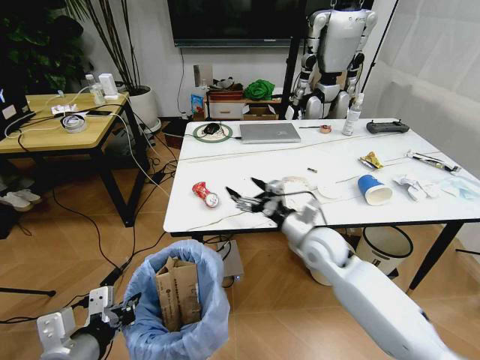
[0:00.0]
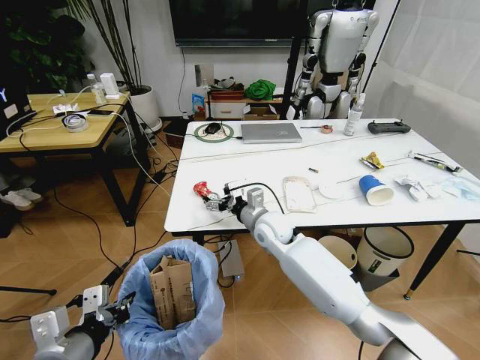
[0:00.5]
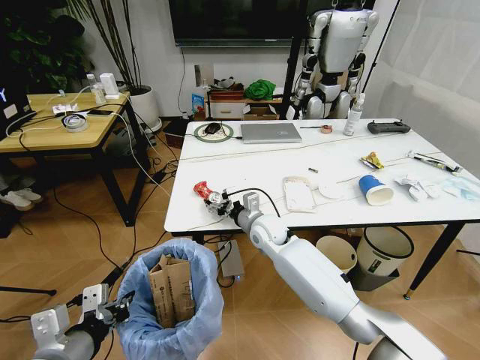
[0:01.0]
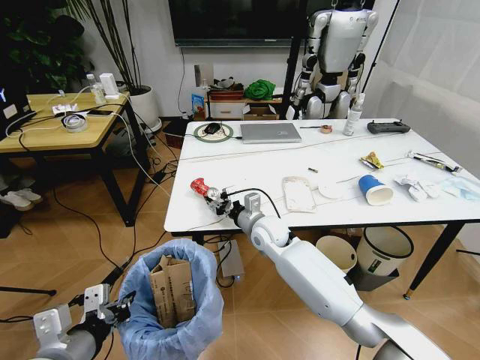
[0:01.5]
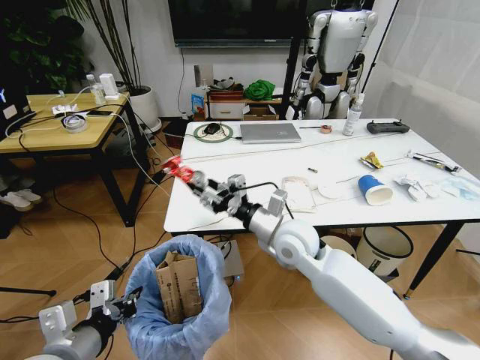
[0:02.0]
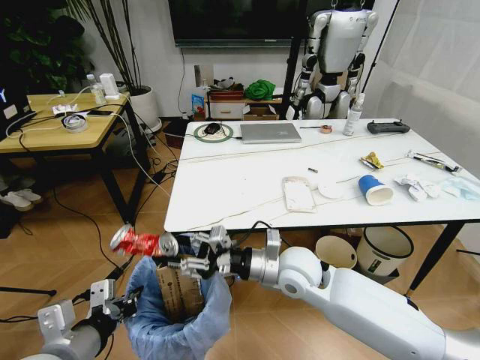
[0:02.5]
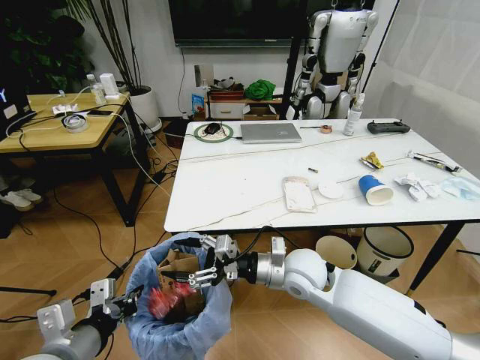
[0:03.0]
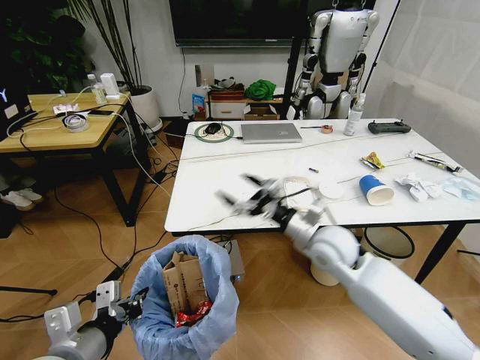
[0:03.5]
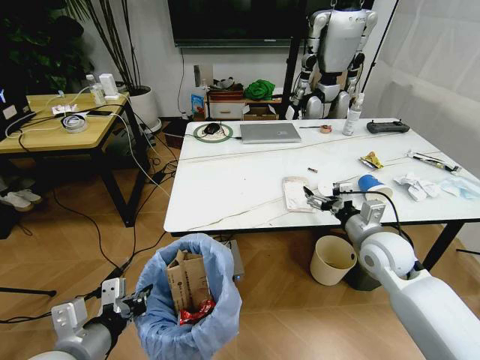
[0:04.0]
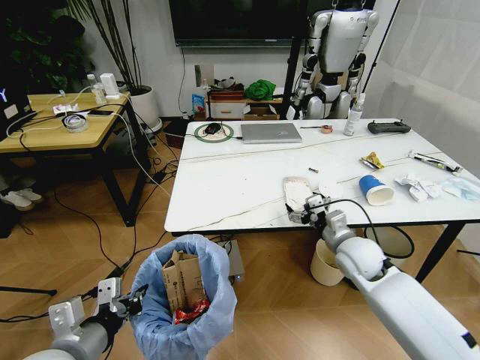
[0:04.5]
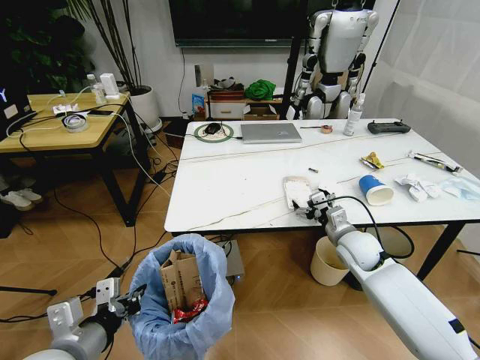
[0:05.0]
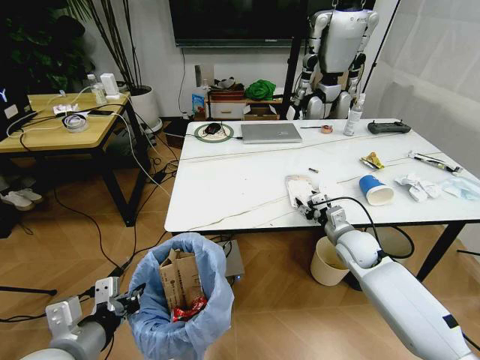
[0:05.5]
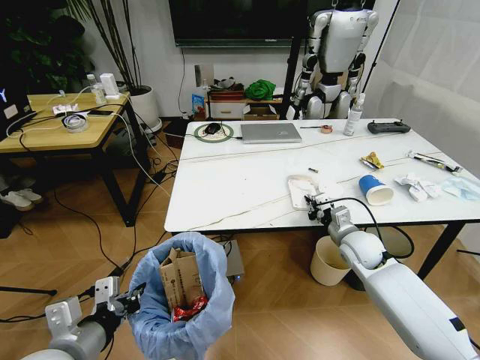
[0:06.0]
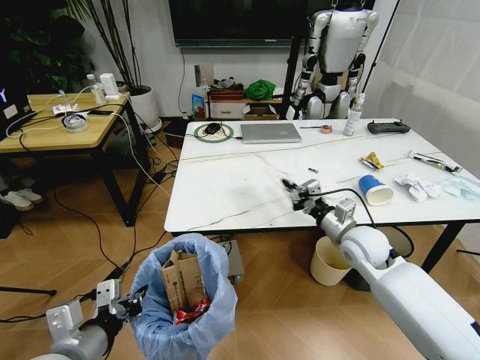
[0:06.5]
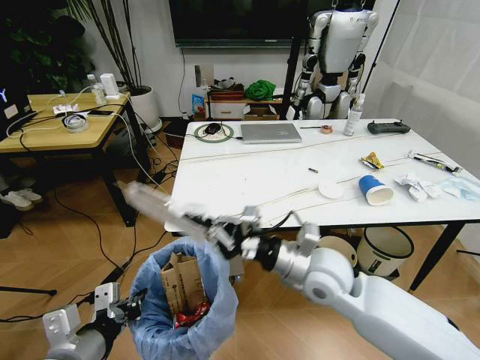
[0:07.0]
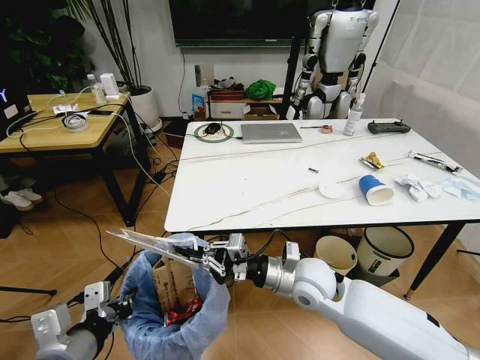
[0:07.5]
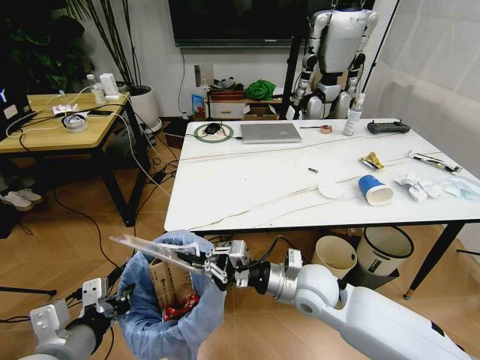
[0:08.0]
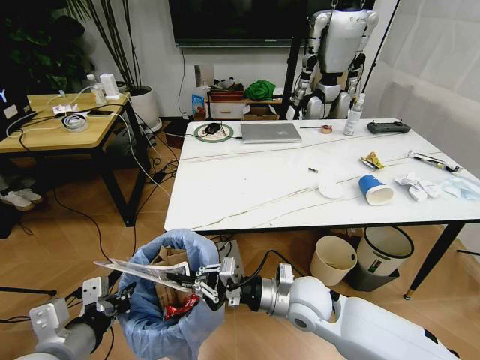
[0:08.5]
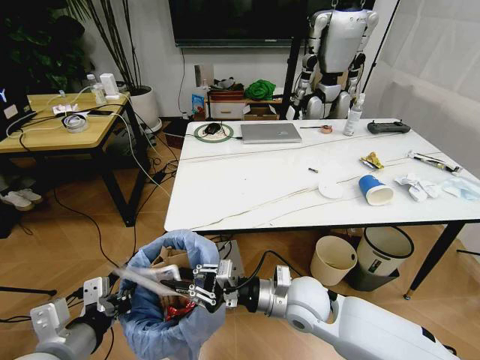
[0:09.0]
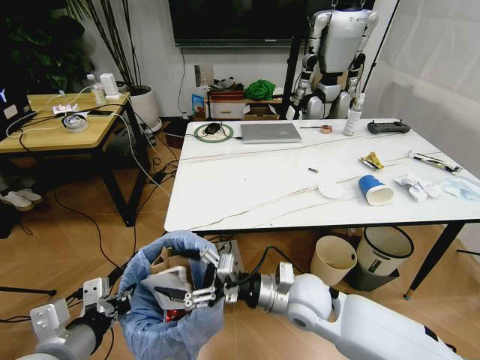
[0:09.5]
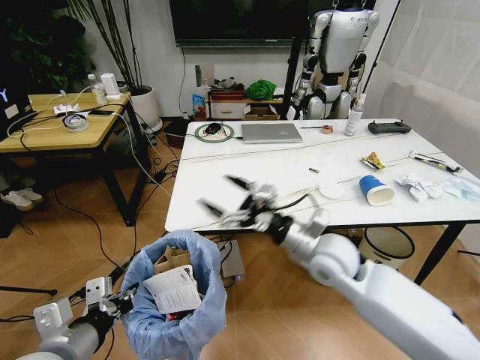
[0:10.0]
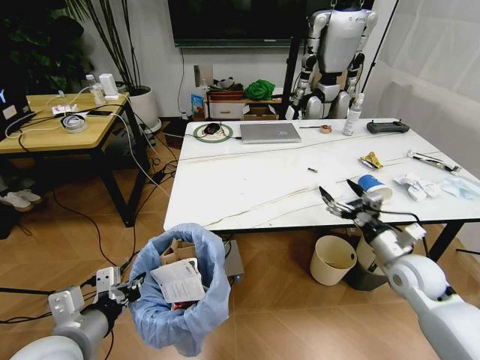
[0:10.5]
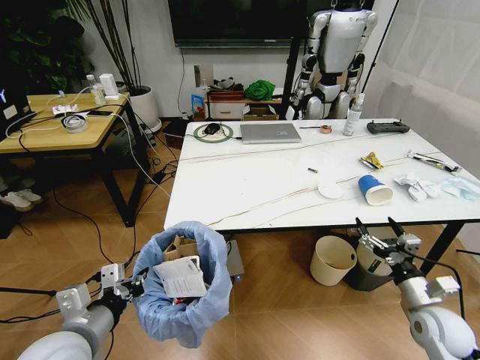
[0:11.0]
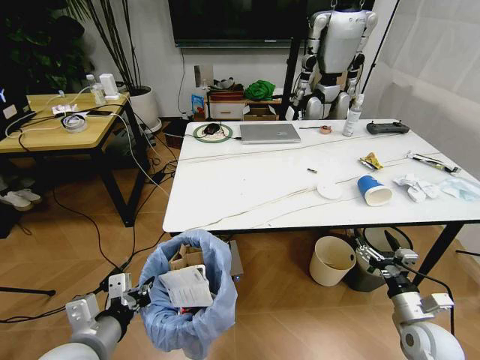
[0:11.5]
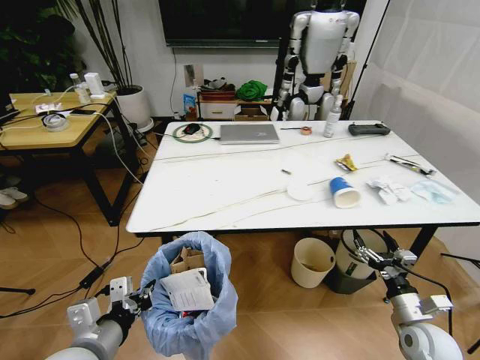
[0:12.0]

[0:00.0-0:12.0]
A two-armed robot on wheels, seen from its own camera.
Task of the whole recording: Pick up the trash bin and place the trash from the table into it.
0:00.0 to 0:02.0: The right gripper moves to the left, about 5 cm, and closes up.
0:02.0 to 0:04.0: The right gripper shifts some 20 cm to the right, and opens.
0:04.0 to 0:06.0: The right gripper travels downward and forward by roughly 10 cm, and closes.
0:06.0 to 0:08.0: The right gripper is displaced to the left and backward by roughly 20 cm.
0:08.0 to 0:10.0: The right gripper goes roughly 5 cm upward, and opens its fingers.
0:10.0 to 0:12.0: The left gripper changes place by roughly 5 cm. The right gripper shifts about 30 cm to the right, downward and backward.

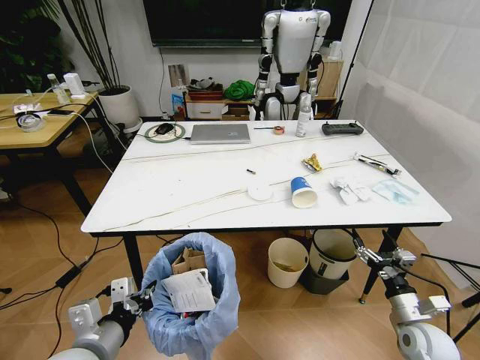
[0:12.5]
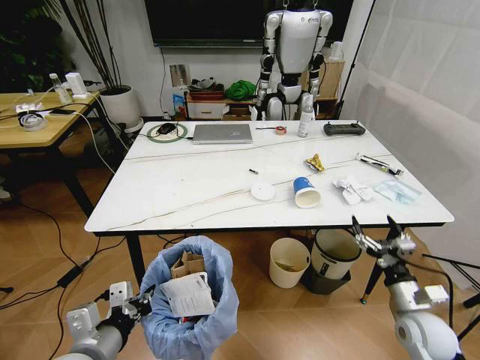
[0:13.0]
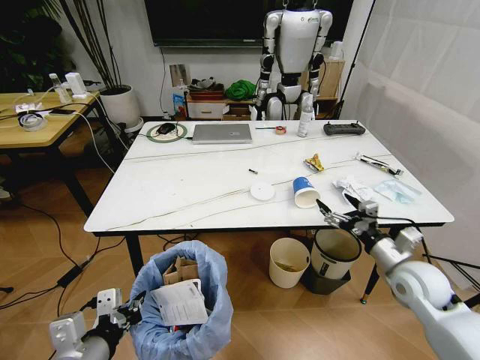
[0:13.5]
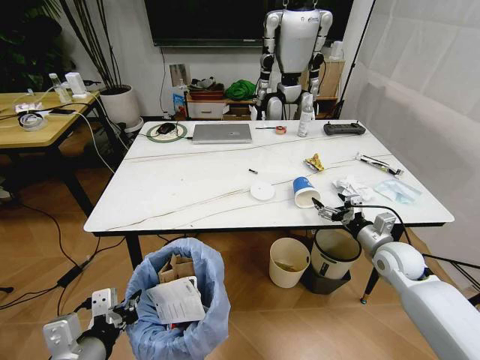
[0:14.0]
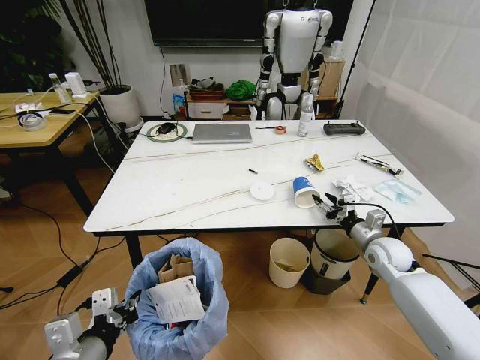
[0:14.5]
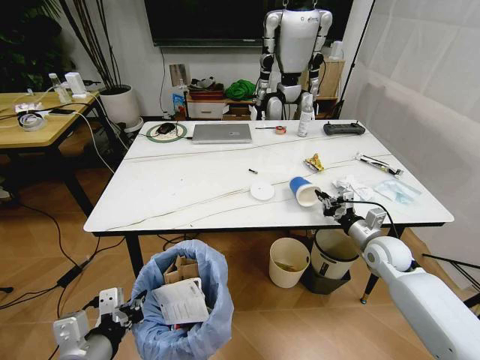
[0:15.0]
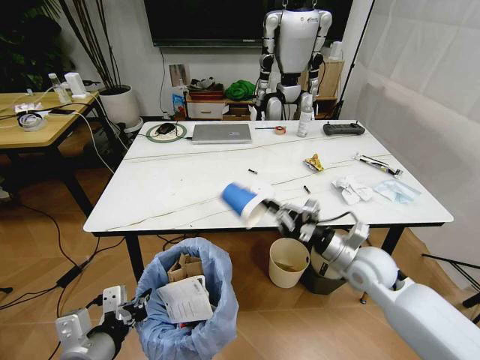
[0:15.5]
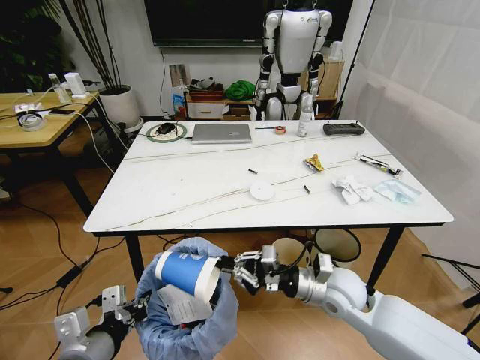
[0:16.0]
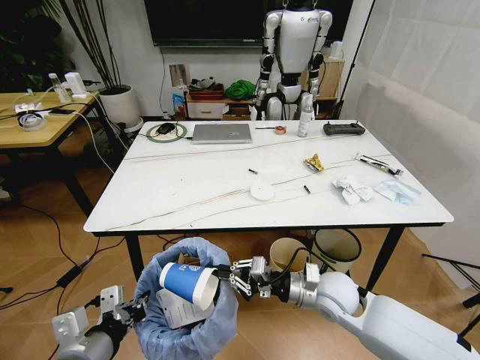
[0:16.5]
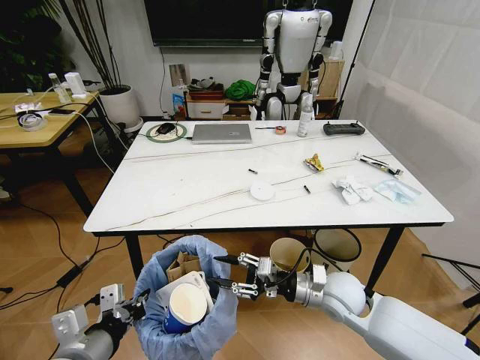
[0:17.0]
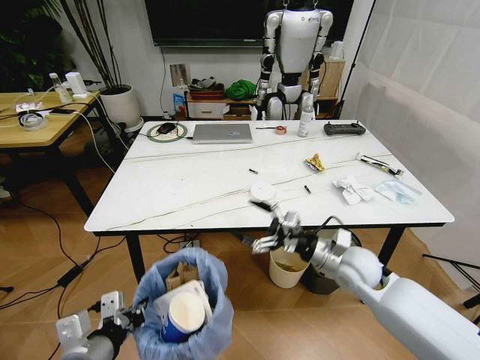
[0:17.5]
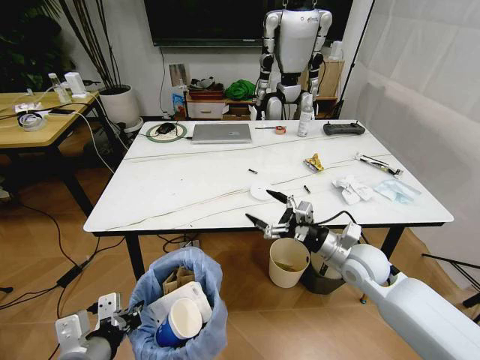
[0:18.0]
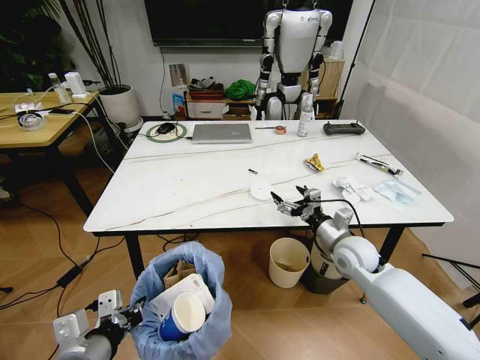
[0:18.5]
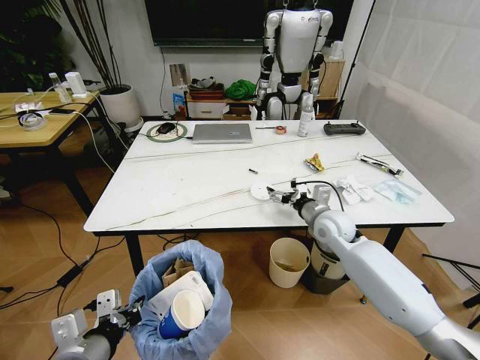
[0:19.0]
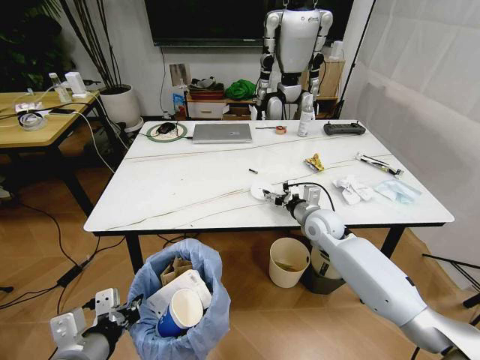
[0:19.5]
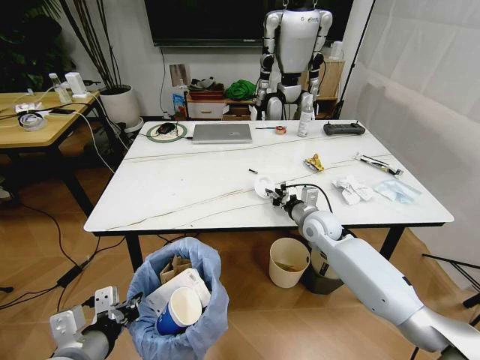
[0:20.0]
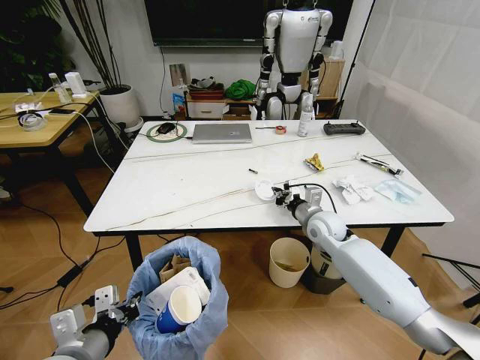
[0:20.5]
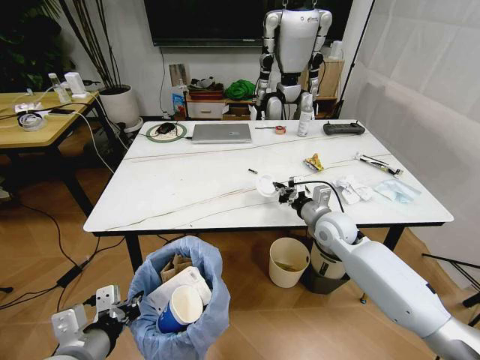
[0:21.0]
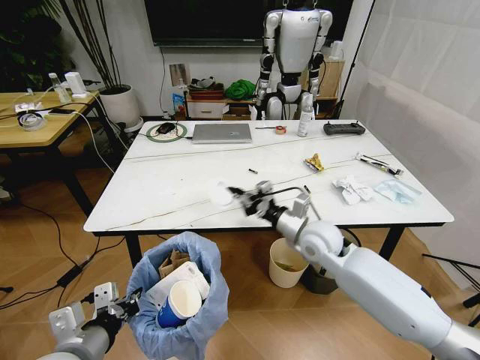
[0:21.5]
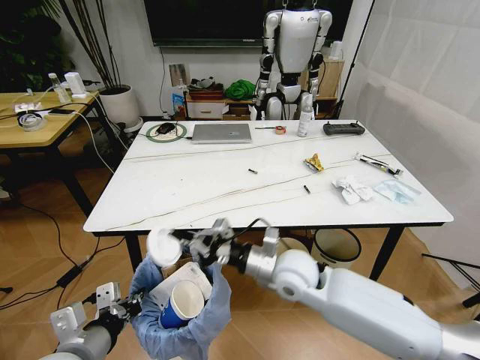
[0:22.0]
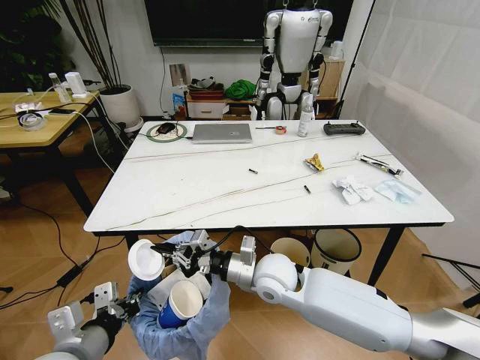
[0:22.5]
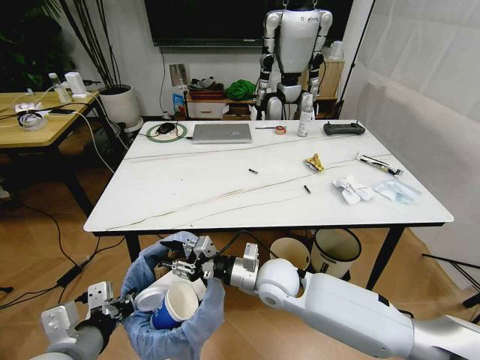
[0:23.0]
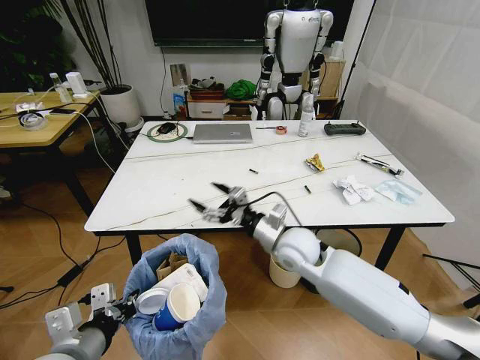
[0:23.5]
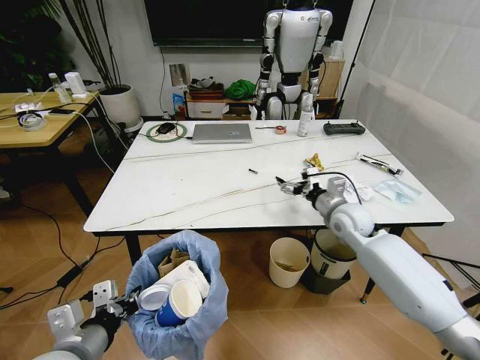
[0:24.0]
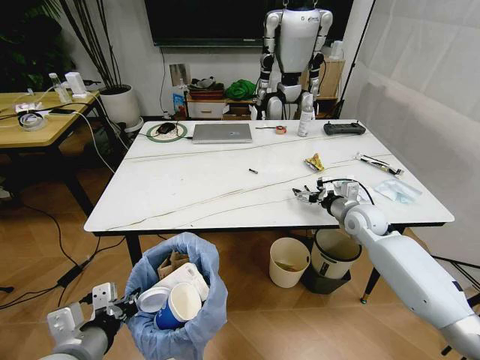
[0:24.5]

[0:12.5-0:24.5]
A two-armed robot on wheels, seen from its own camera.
Task of the whole recording: Pick up the trash bin and place the trash from the table into it.
0:12.5 to 0:14.5: The right gripper goes some 20 cm forward, and closes.
0:14.5 to 0:16.5: The right gripper travels to the left and backward by some 20 cm, and closes up.
0:16.5 to 0:18.5: The right gripper travels forward and to the right by about 10 cm, and opens.
0:18.5 to 0:20.5: The right gripper heads forward, covering approximately 10 cm, and closes up.
0:20.5 to 0:22.5: The right gripper goes approximately 20 cm to the left and backward.
0:22.5 to 0:24.5: The right gripper goes some 30 cm to the right and forward, and opens up.

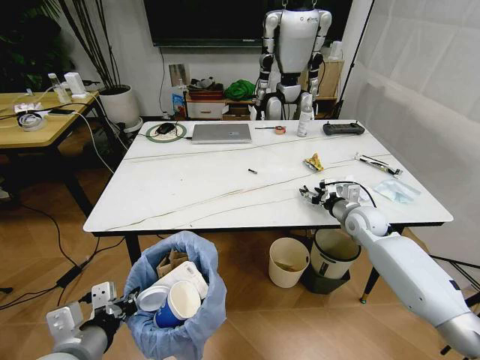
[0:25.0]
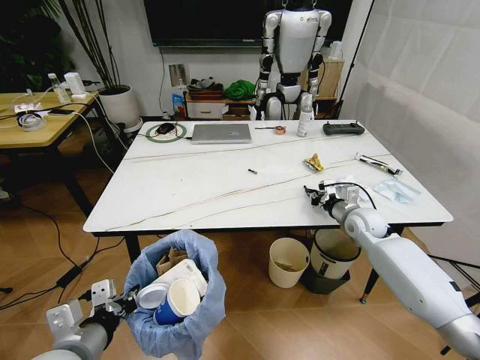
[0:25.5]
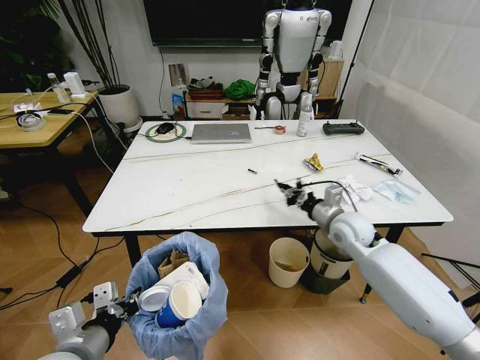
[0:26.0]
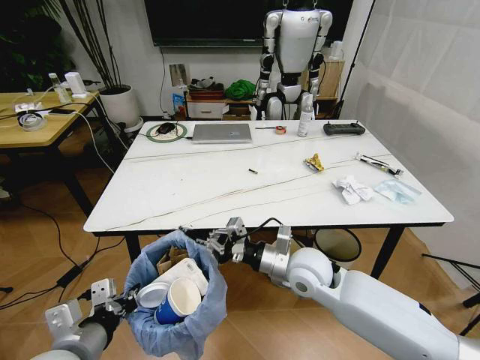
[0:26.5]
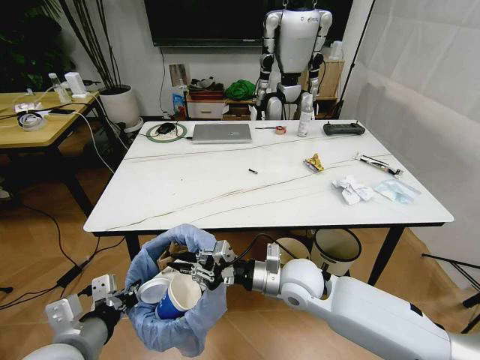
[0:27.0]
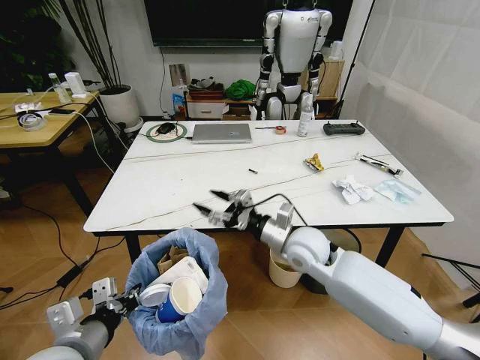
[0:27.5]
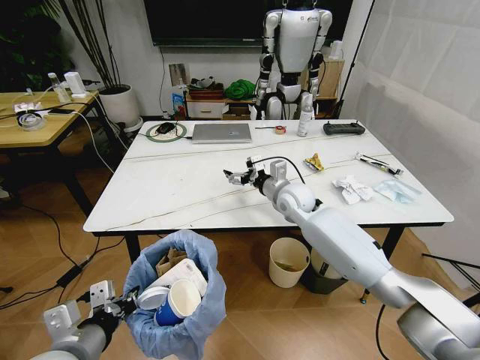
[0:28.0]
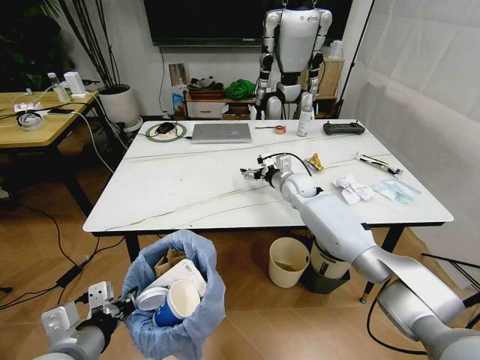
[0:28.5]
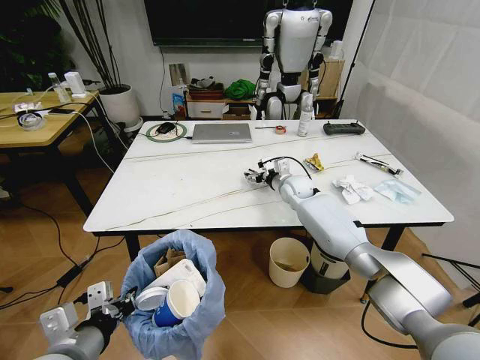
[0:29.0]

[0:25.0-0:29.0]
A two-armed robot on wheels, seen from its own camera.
Task of the whole recording: Pick up the trash bin and place the trash from the table into it.
0:25.0 to 0:27.0: The right gripper moves to the left and backward, some 25 cm, and closes.
0:27.0 to 0:29.0: The right gripper heads forward, covering some 30 cm, and opens up.
